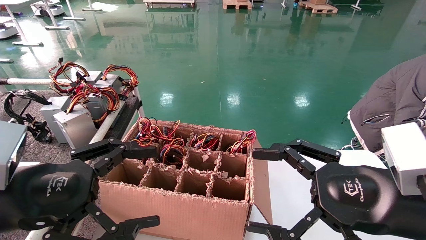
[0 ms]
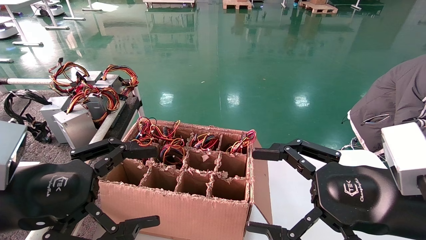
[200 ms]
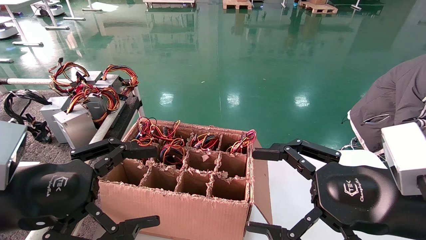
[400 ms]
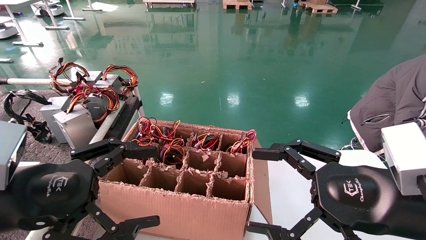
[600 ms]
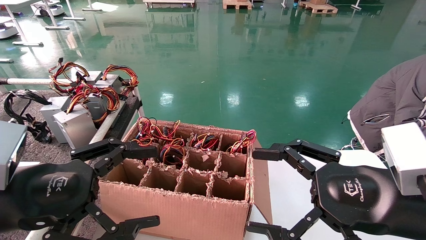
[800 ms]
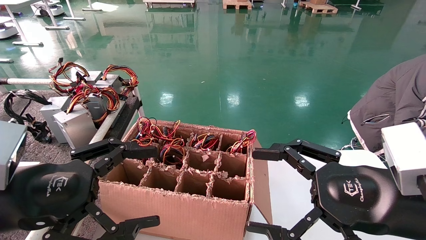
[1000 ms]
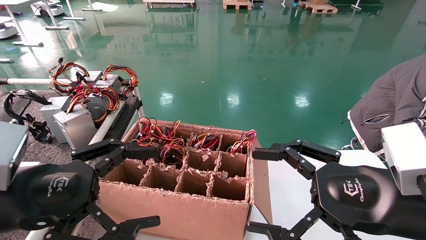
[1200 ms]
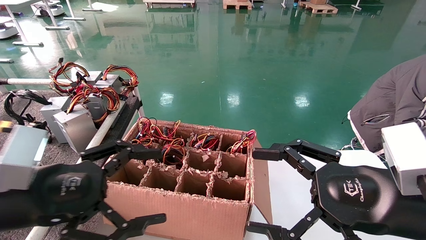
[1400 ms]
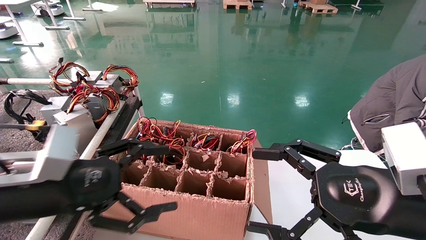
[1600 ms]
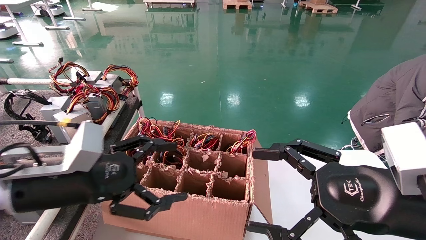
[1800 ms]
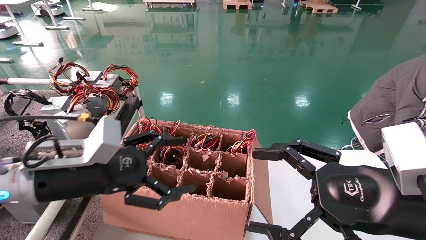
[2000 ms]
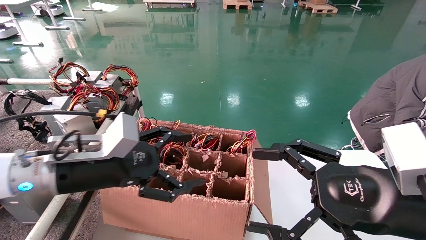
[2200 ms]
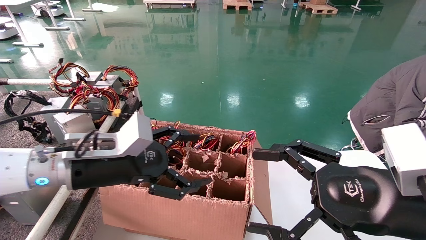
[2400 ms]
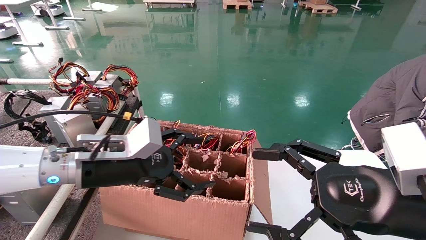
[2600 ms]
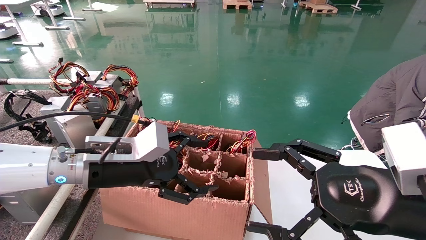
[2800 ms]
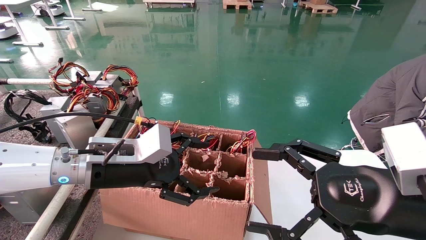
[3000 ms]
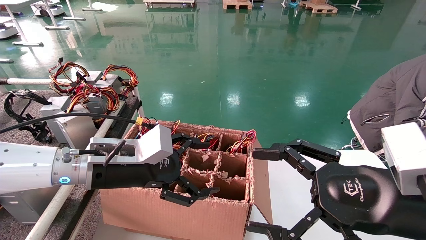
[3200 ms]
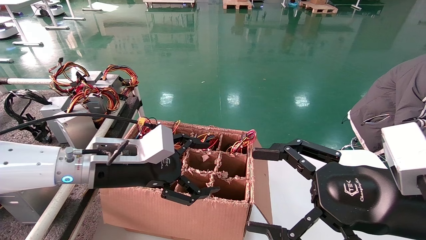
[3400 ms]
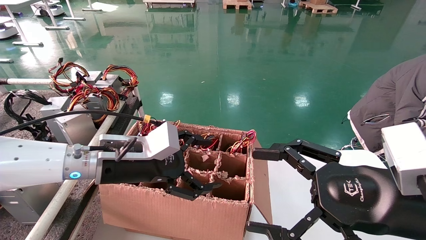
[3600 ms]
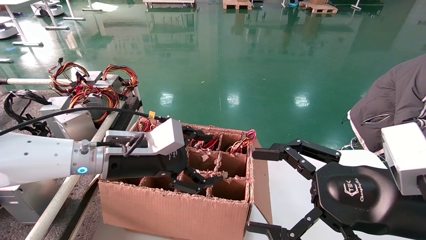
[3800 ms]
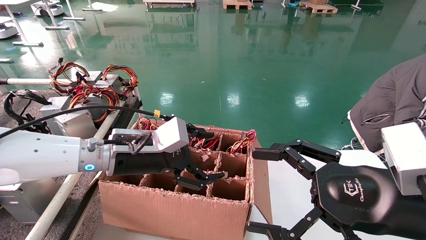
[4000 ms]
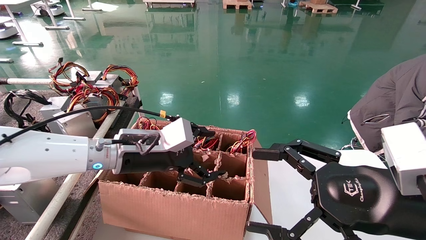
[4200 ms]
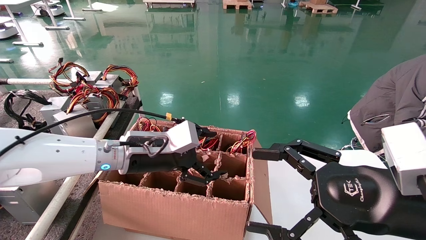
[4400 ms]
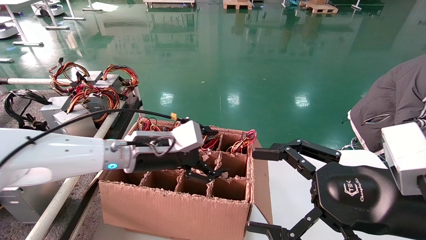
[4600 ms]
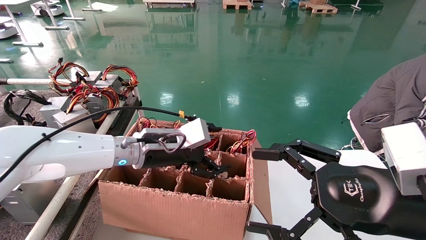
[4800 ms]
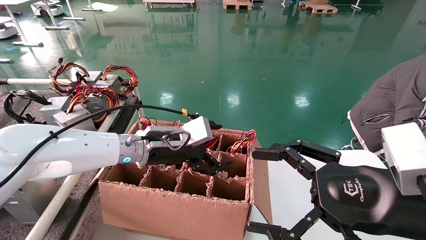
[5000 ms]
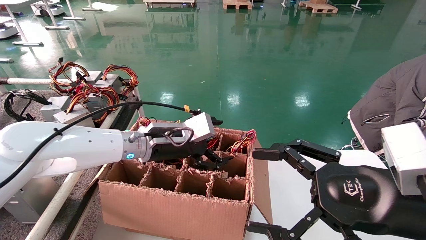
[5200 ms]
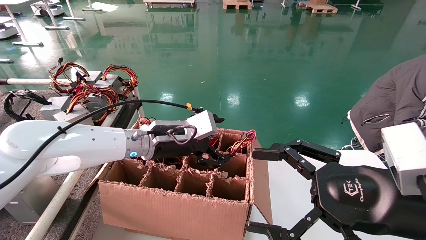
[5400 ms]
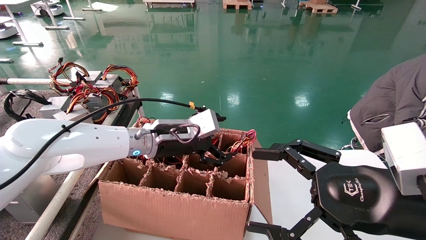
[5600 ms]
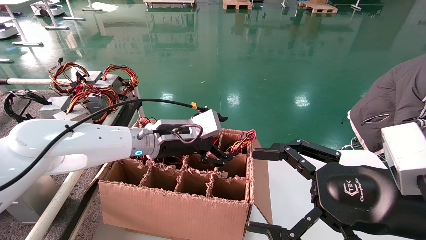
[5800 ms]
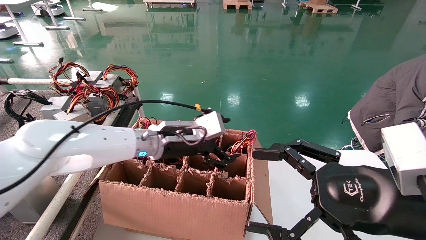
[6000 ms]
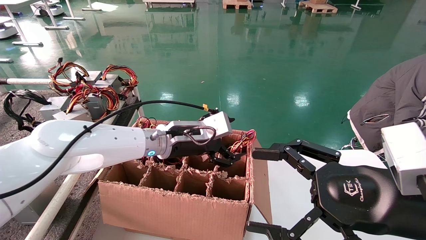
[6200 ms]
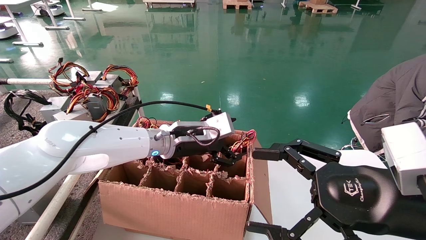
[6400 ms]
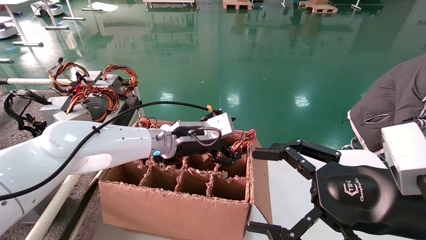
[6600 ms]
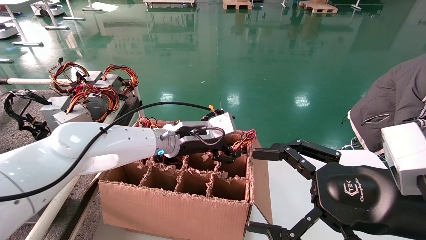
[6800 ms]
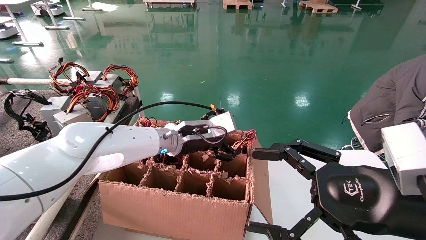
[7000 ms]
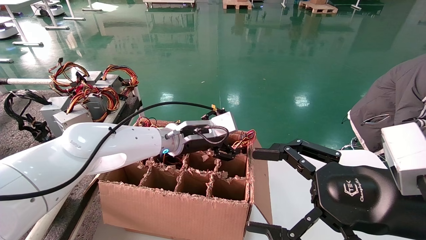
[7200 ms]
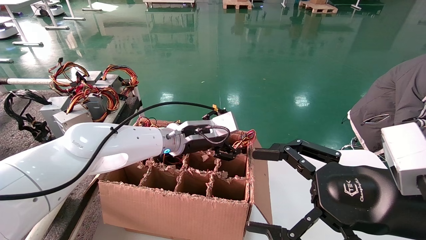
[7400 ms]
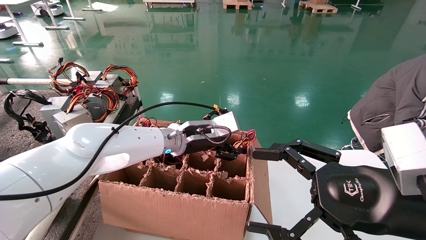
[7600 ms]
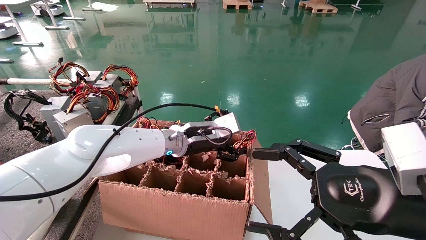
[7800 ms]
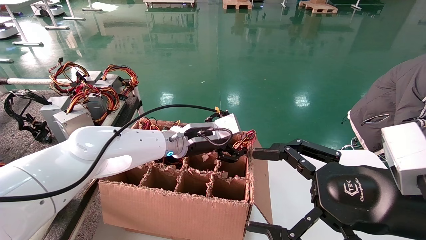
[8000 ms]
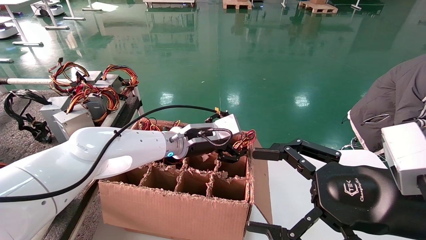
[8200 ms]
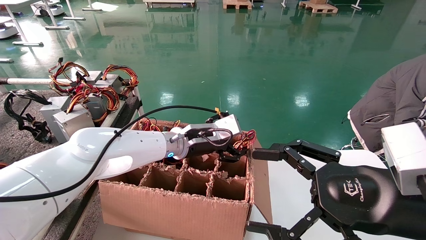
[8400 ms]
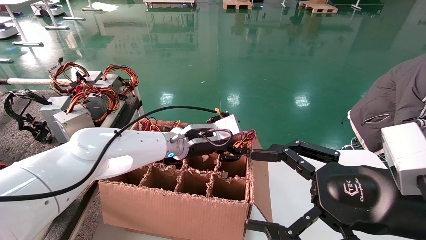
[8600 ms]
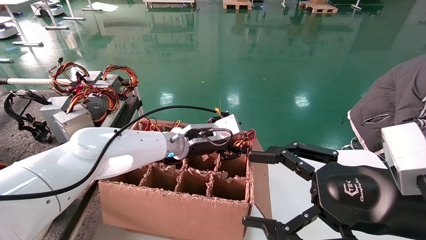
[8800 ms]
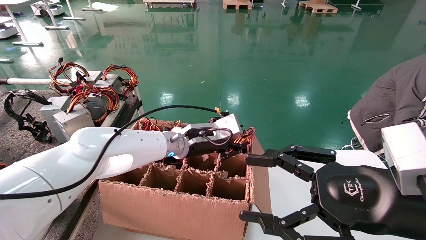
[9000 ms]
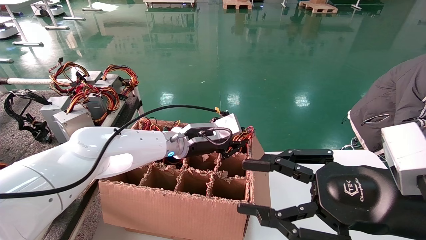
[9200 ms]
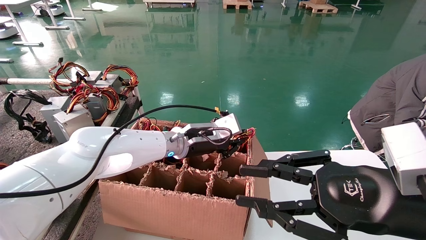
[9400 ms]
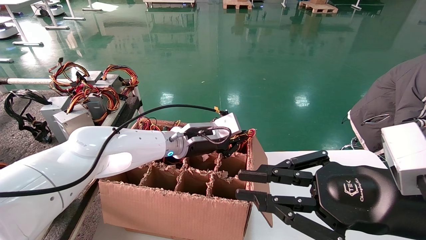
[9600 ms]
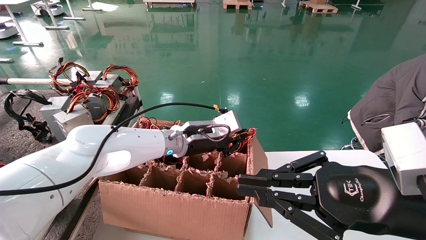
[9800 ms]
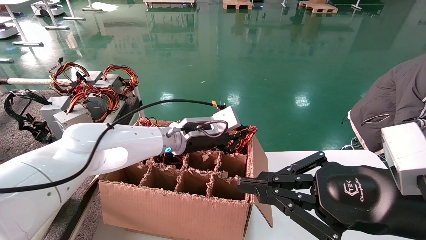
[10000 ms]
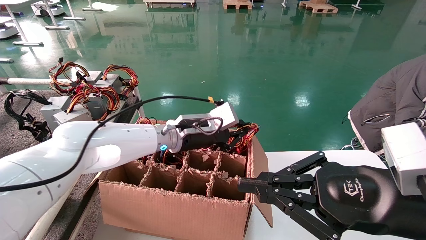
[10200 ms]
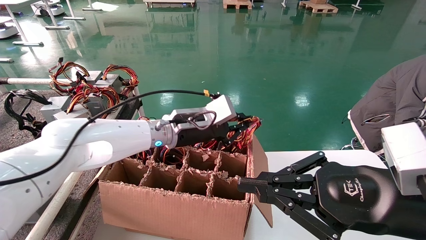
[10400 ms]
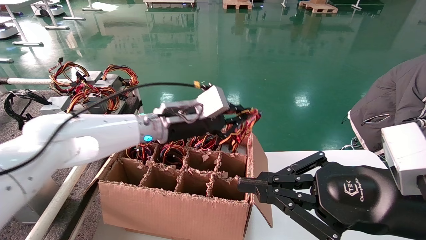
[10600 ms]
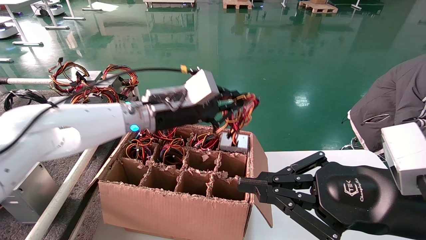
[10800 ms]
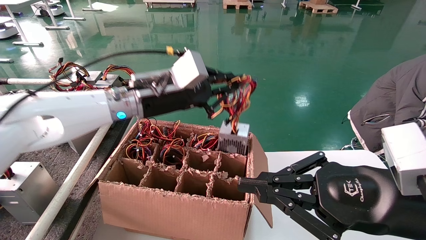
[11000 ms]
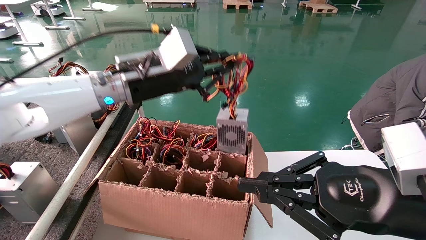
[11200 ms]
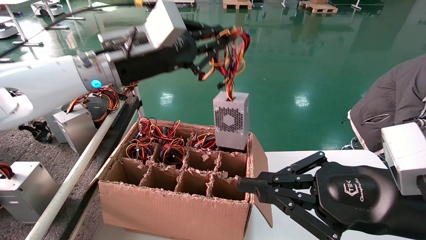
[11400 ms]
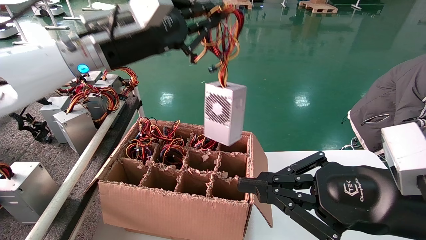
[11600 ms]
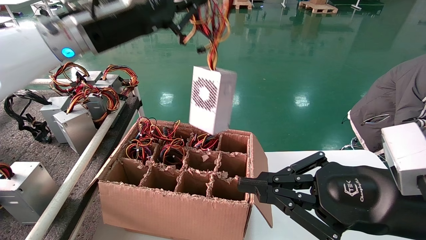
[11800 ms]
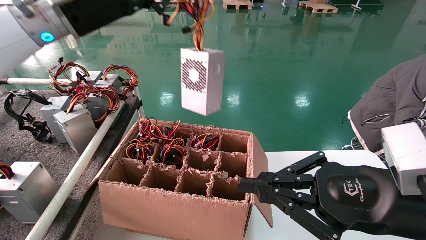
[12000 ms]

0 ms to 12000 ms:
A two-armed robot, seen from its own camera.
Step, 1600 ms to 9400 ms: Grab and lift the power supply from the large box.
0 ms to 1600 ms: There are only small adjustments of the grippers.
1600 ms to 3000 ms: The left gripper goes roughly 10 cm forward and to the right.
3000 ms to 4400 ms: The left gripper shifts about 5 cm forward.
4400 ms to 6000 ms: The left gripper travels to the right by roughly 5 cm.
6000 ms to 7600 ms: The left gripper moves roughly 5 cm.
7600 ms to 9000 ms: The left gripper closes its fingers.
9000 ms to 10400 ms: The right gripper closes, while the left gripper ends up some 5 cm from where it was, and closes its fingers.
10400 ms to 12000 ms: The left gripper is displaced upward and to the left by roughly 25 cm.

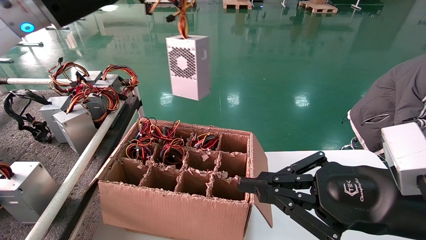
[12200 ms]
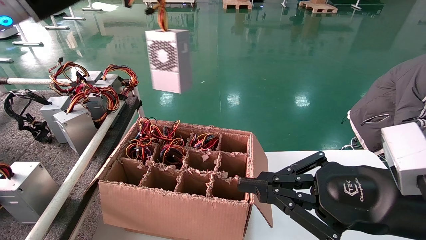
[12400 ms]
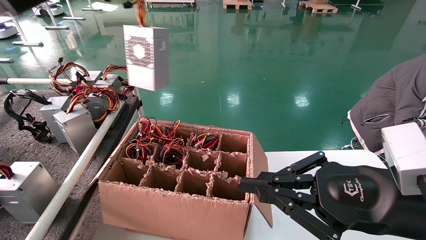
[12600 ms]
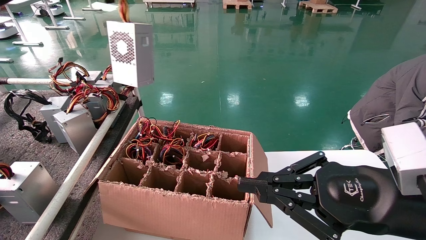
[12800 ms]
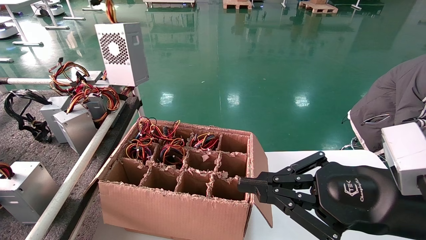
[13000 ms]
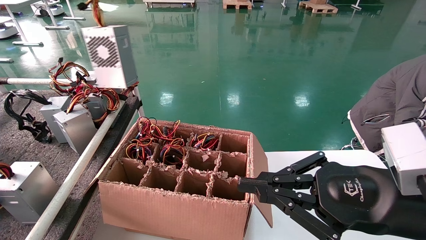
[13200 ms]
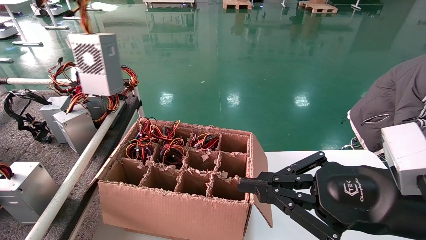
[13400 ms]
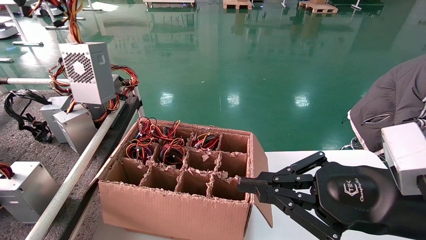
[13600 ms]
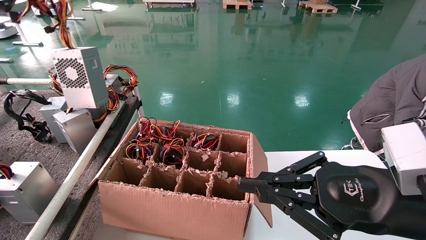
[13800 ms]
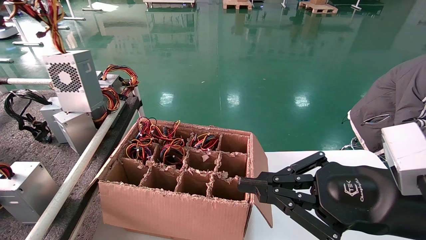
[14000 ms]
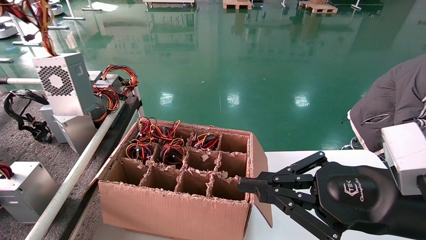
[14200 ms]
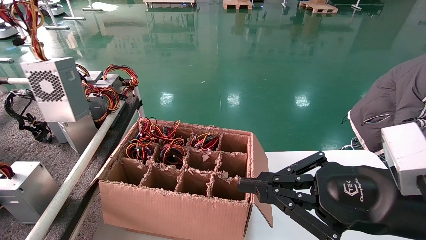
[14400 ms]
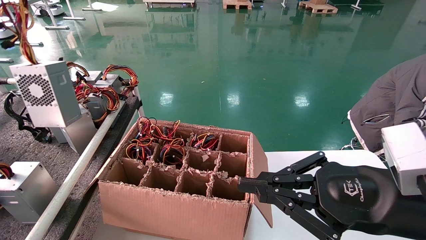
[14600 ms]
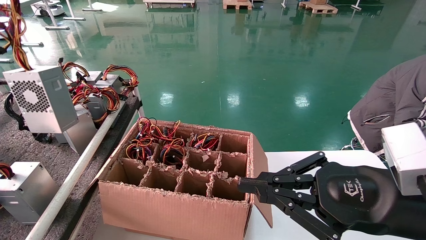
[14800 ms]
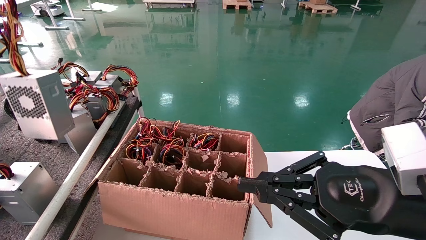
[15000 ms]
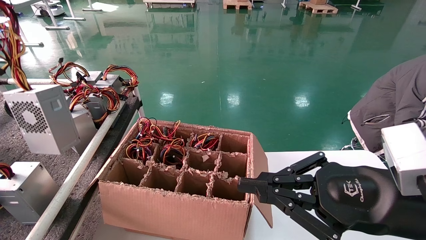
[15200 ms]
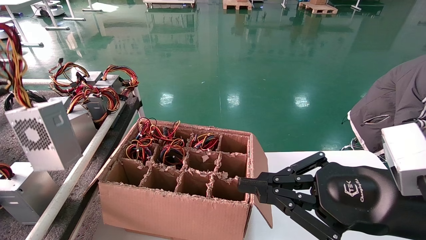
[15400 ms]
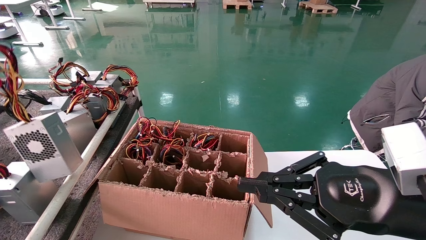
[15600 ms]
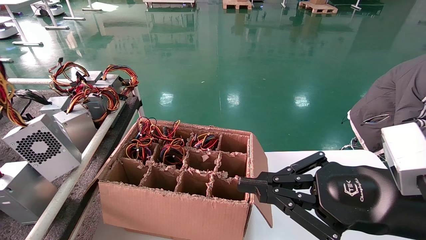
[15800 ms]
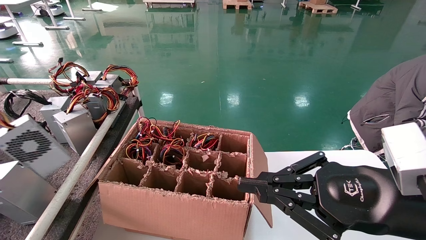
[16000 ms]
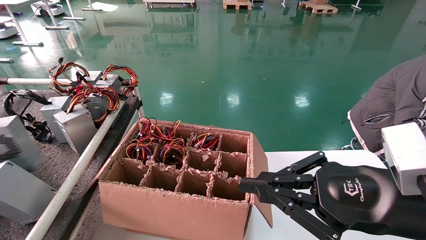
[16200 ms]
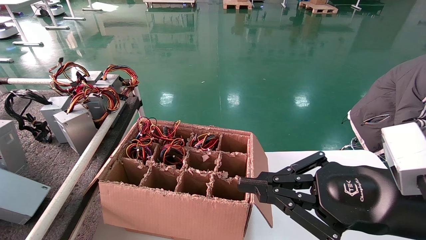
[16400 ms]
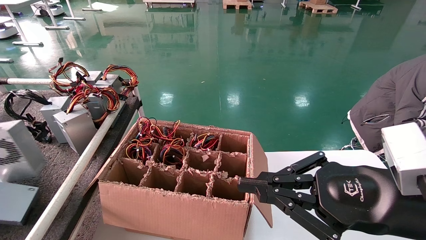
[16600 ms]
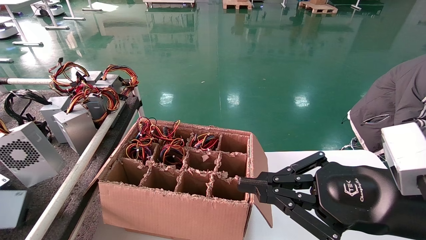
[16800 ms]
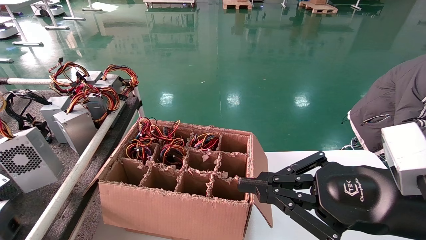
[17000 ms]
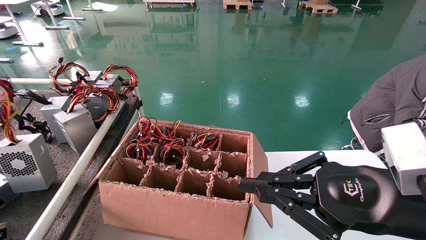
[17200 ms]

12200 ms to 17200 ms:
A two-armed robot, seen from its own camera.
12200 ms to 13800 ms: The left gripper shifts about 20 cm to the left.
13800 ms to 15600 ms: The left gripper heads backward, to the left and downward, covering approximately 15 cm.
15600 ms to 17200 ms: The left gripper heads downward, covering about 5 cm.
